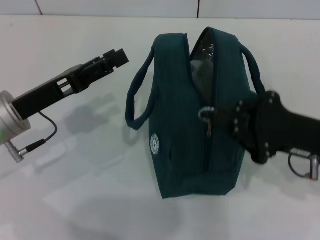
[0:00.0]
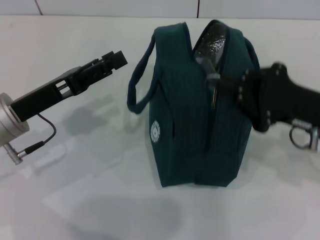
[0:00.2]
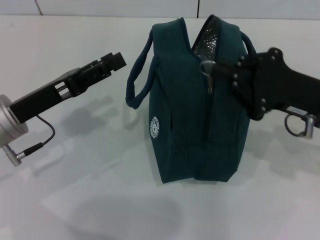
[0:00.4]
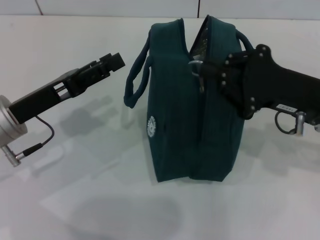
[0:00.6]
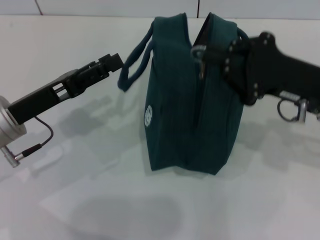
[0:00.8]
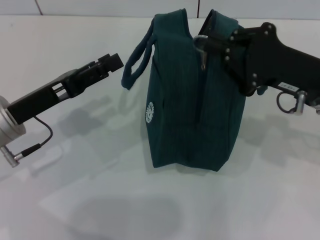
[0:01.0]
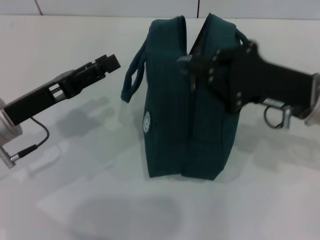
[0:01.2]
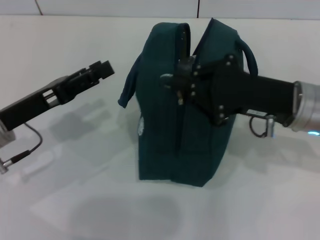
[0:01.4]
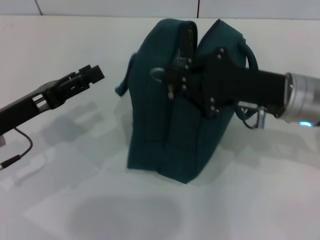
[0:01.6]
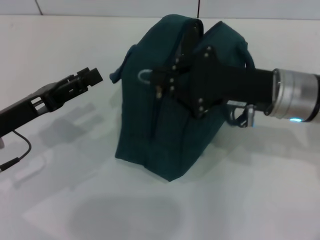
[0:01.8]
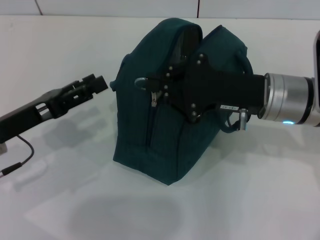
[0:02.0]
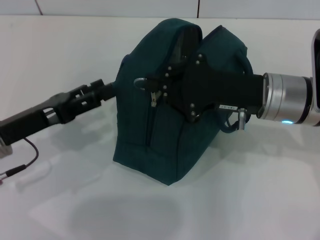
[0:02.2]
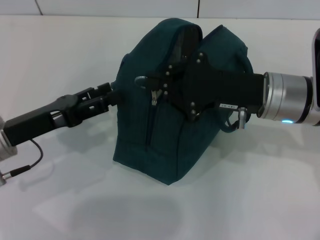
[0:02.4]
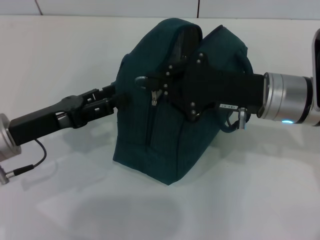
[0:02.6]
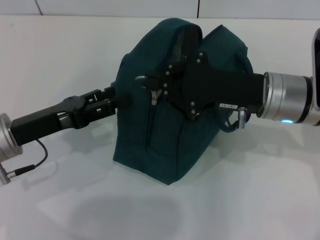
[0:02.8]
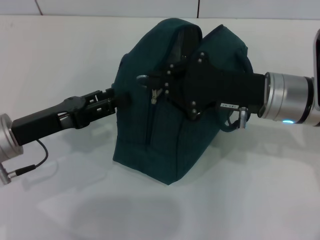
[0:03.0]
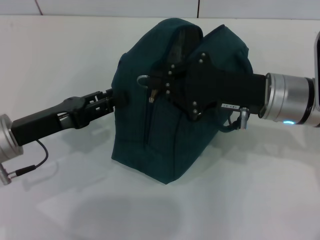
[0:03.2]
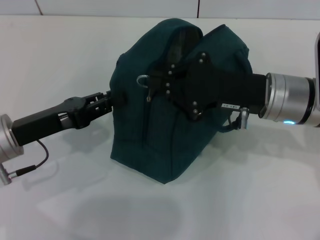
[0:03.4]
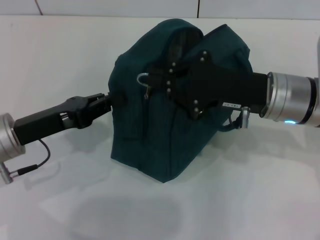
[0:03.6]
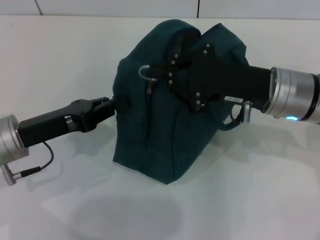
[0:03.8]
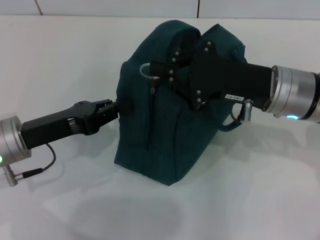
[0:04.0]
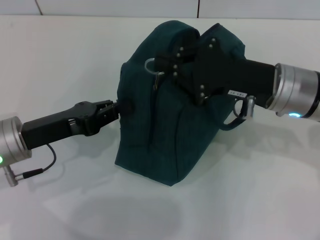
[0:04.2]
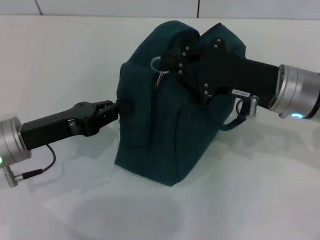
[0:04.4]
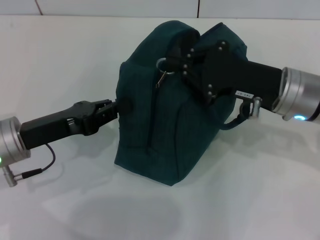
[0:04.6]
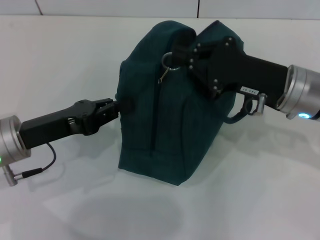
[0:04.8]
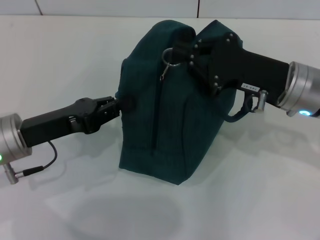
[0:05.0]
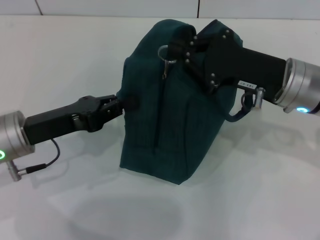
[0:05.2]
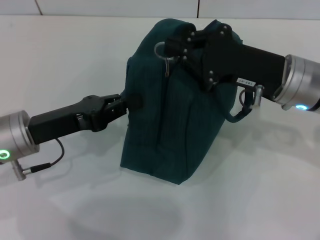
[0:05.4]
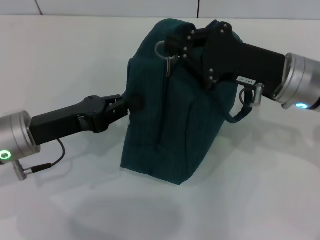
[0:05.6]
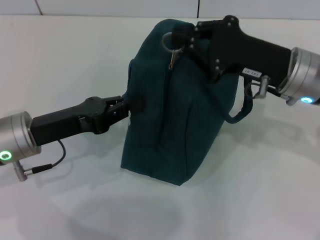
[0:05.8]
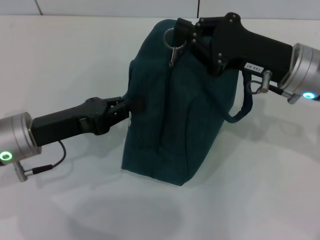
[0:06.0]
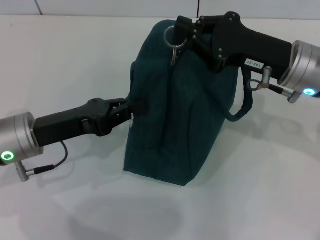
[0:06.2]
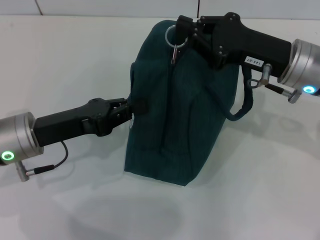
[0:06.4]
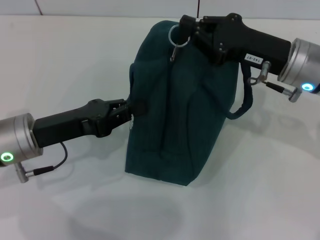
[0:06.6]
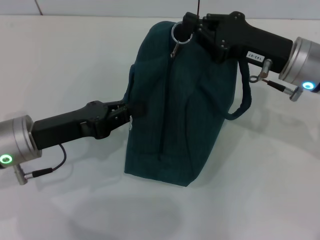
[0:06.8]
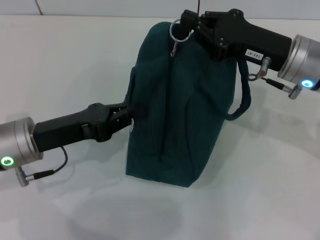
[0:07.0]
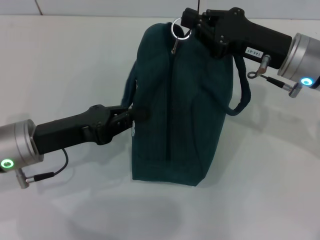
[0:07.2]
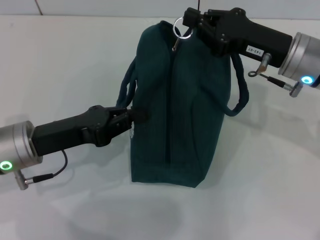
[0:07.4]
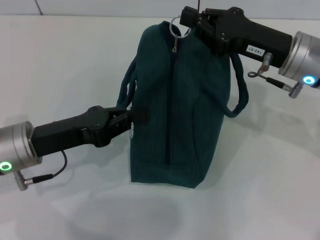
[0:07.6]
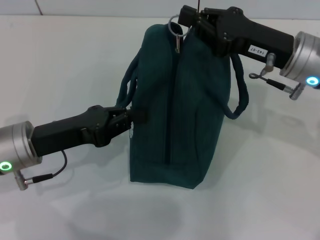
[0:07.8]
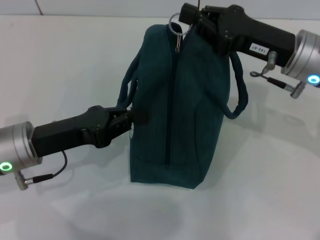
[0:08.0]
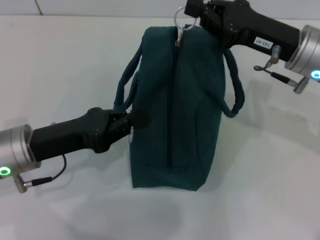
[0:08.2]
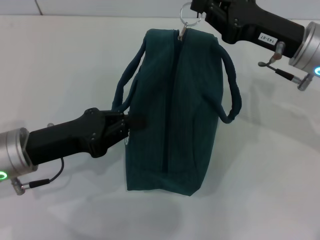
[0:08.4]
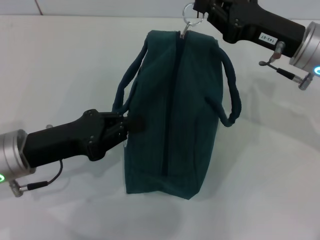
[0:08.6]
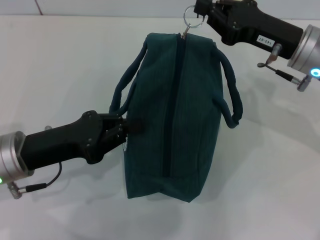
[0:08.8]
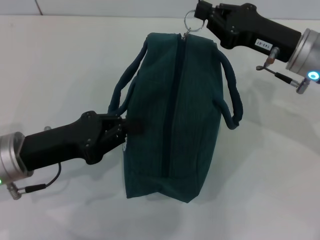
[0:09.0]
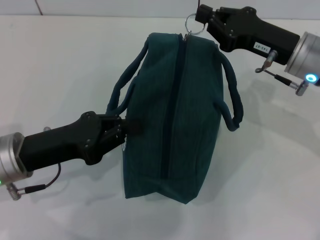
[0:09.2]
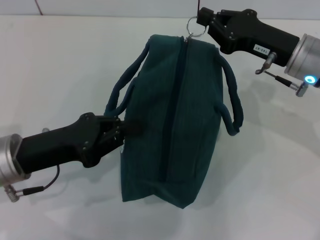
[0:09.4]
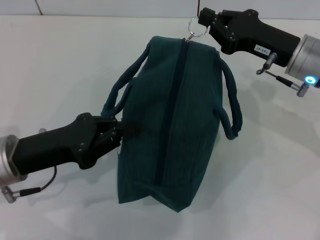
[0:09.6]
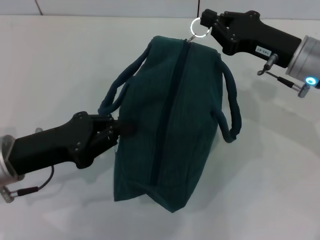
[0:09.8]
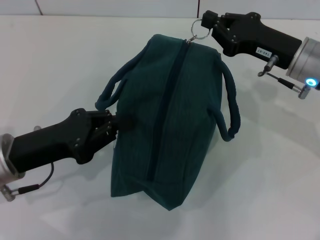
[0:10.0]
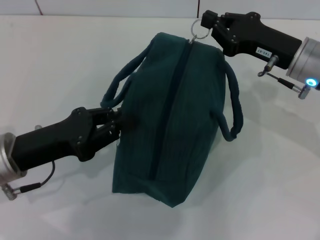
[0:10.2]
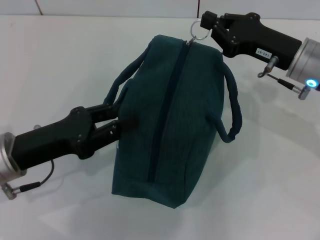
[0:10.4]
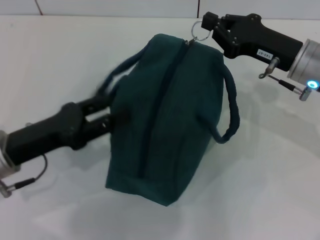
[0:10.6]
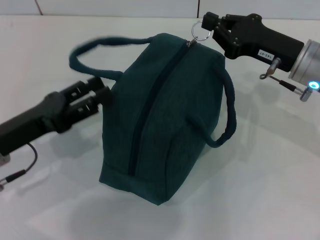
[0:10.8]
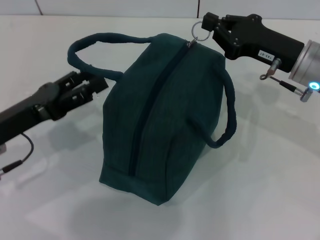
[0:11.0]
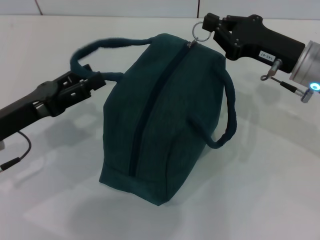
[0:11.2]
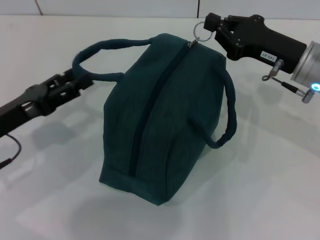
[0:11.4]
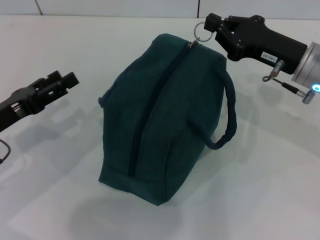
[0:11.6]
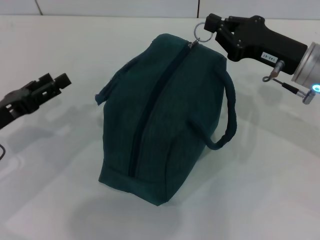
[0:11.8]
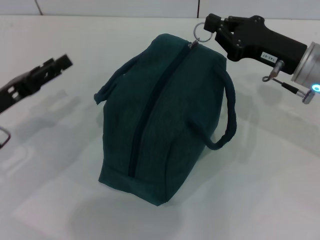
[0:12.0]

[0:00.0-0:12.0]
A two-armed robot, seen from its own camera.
0:00.0 to 0:01.6: The right gripper moves to the left and forward, roughly 10 cm.
0:01.6 to 0:03.0: The grippers make only small movements.
0:03.0 to 0:04.4: The left gripper closes up.
0:04.4 to 0:07.6: The grippers stay close to where they were, moving slightly.
0:07.6 to 0:10.4: The grippers move only a little.
0:10.4 to 0:12.0: The left gripper shifts about 5 cm to the left, and opens up.

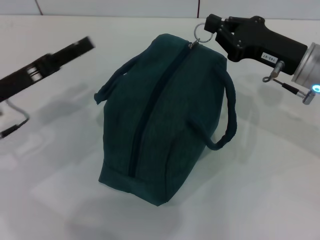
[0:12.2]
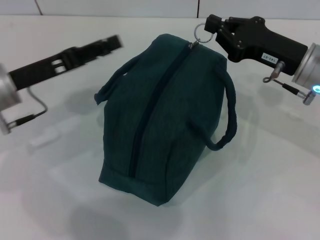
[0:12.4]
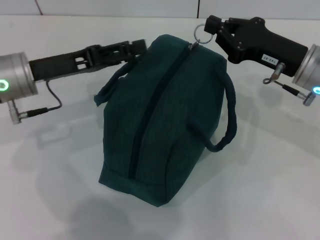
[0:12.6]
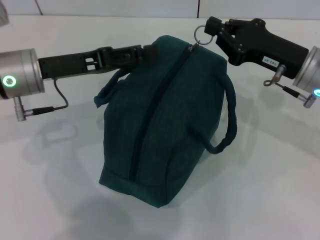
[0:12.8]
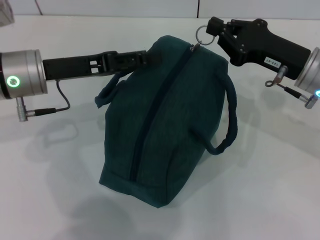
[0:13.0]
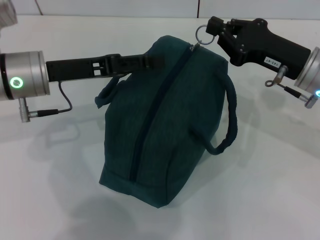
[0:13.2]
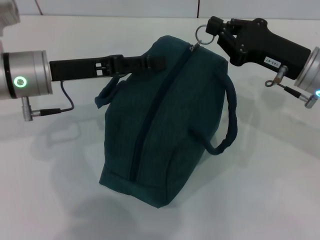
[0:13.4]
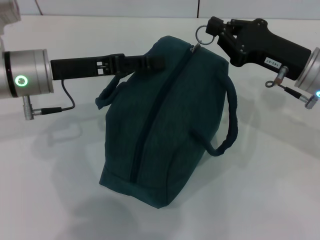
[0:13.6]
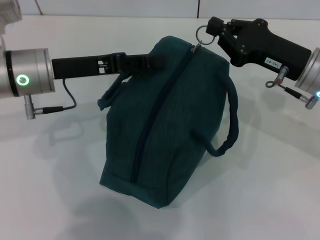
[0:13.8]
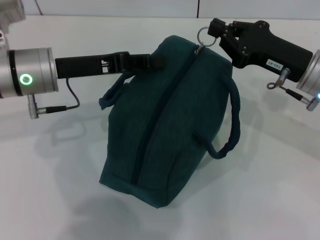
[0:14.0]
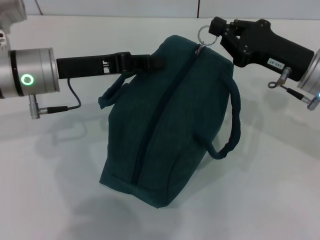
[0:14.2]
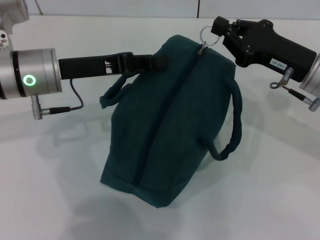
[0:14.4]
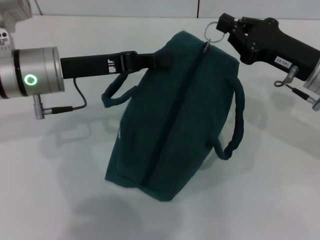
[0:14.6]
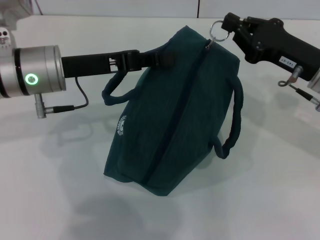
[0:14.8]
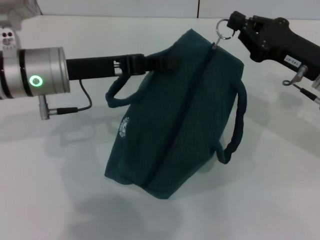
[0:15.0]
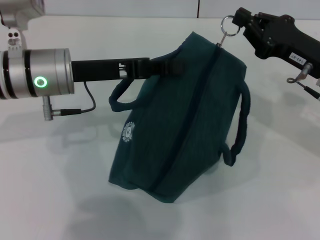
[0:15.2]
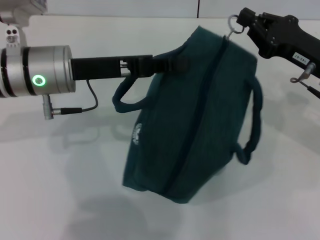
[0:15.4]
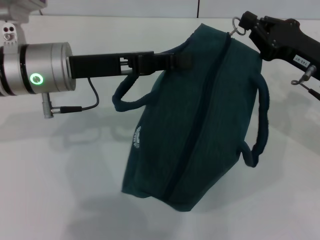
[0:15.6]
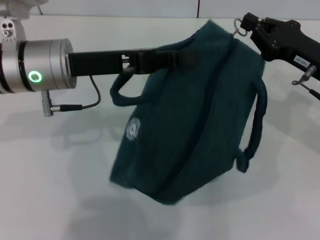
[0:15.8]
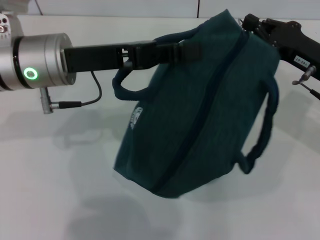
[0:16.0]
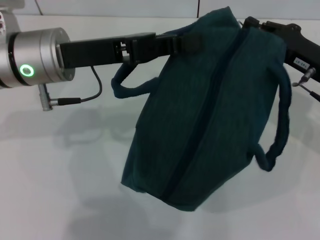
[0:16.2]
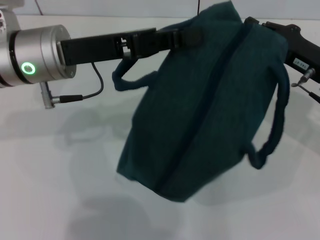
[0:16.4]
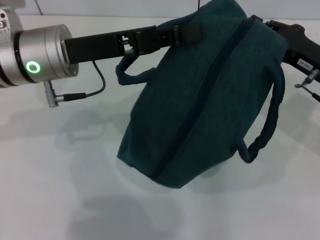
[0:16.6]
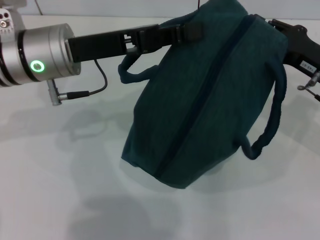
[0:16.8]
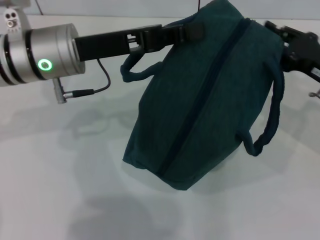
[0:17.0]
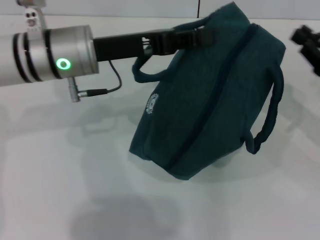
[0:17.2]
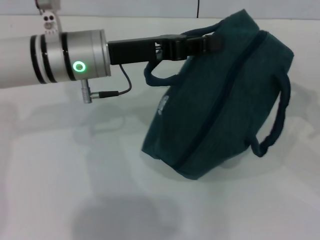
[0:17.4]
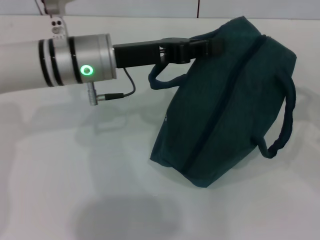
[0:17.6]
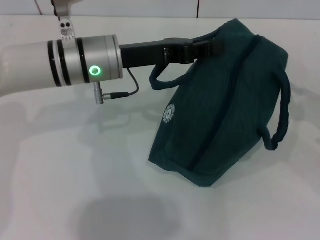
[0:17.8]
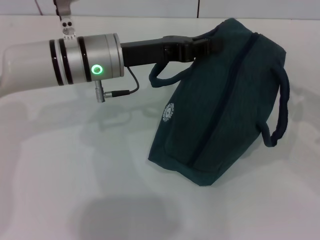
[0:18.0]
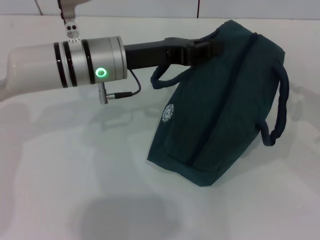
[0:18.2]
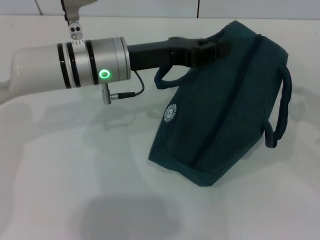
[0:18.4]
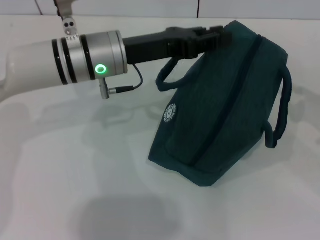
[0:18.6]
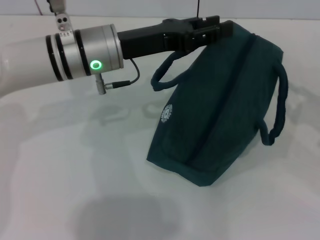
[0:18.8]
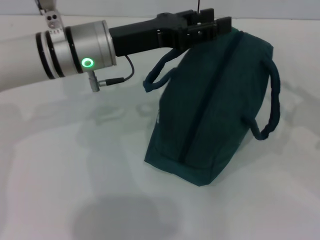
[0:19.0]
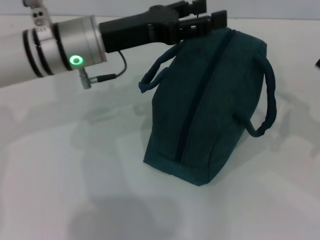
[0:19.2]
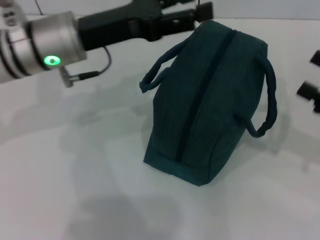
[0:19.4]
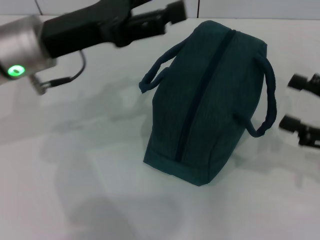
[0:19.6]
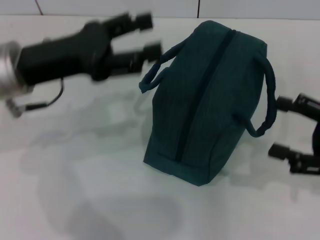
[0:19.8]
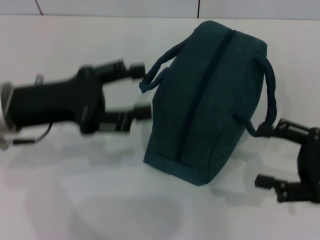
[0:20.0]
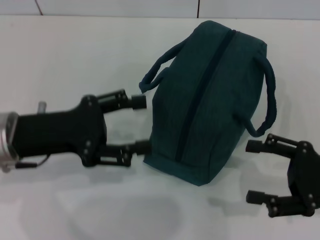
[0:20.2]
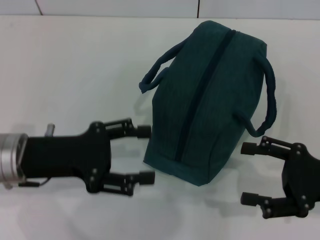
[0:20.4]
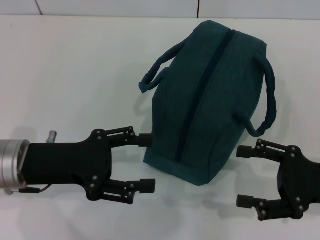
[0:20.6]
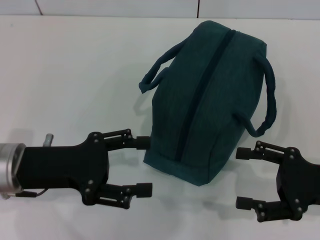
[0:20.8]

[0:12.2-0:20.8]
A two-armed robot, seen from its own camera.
Step, 0:12.2 to 0:17.0: Zip up the lunch bag with your right hand.
Step, 0:17.2 to 0:18.8: Hold the lunch bag with your left hand.
0:12.2 to 0:13.6: The left gripper is displaced to the right and forward by roughly 10 cm.
0:13.6 to 0:15.0: The left gripper closes.
0:16.6 to 0:18.0: The right gripper travels to the right and backward by some 10 cm; the left gripper moves some 5 cm.
0:18.0 to 0:19.4: The right gripper opens its fingers. Meanwhile the left gripper shifts by roughly 5 cm, and opens up.
0:19.4 to 0:20.8: The left gripper heads backward, downward and to the left, covering roughly 15 cm, while the right gripper shifts roughly 5 cm to the left.

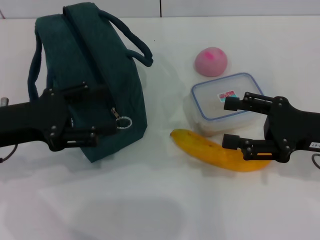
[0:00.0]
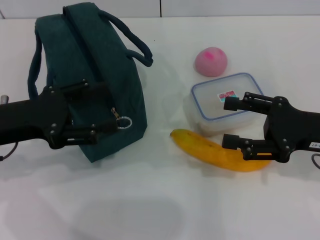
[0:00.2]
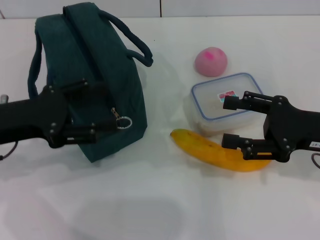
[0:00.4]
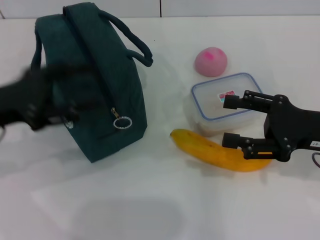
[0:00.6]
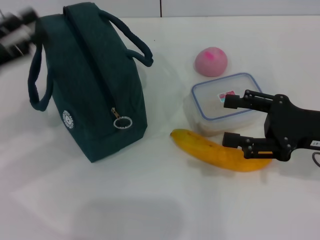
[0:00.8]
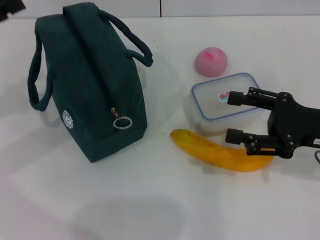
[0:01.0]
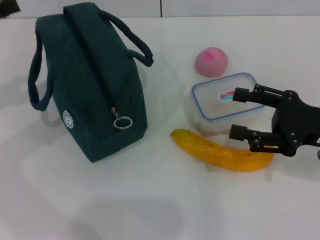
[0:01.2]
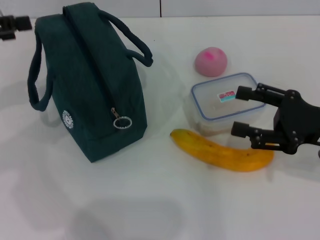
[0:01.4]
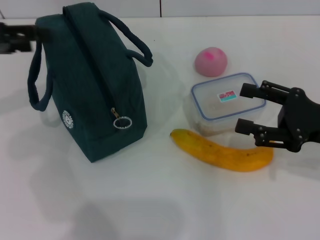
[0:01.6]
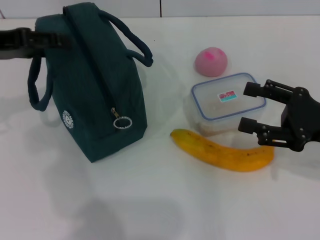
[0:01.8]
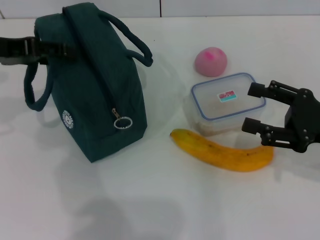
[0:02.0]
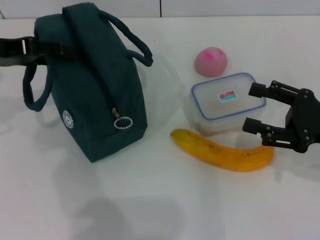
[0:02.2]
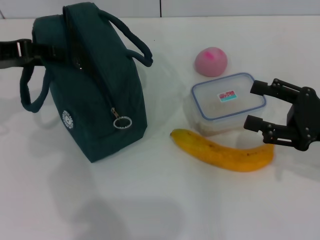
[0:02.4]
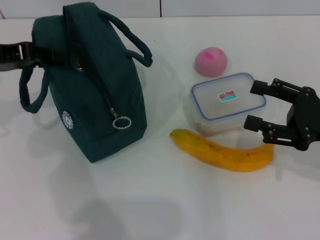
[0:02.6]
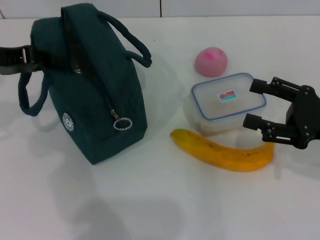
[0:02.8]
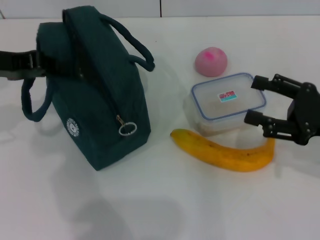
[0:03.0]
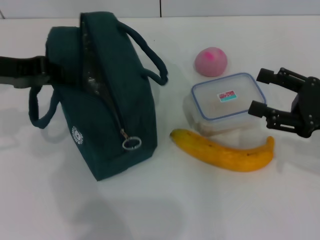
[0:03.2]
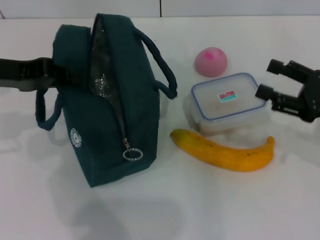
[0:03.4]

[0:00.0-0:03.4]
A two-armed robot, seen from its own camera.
0:00.0 to 0:01.6: The left gripper is displaced upward and forward by some 10 cm.
0:01.6 to 0:03.4: The left gripper ends up roughly 5 cm from where it was, and closes its fingers.
